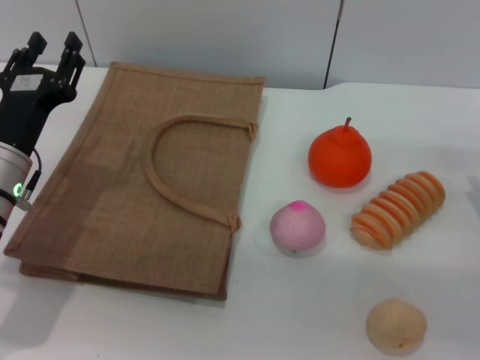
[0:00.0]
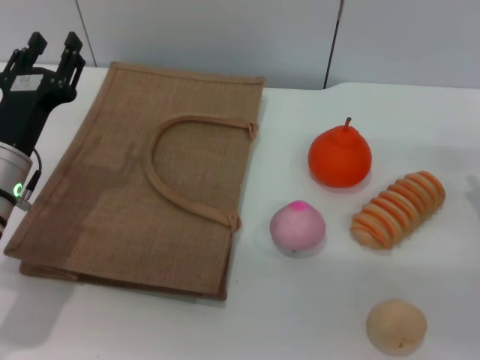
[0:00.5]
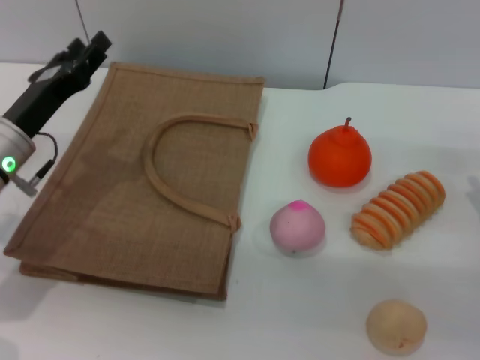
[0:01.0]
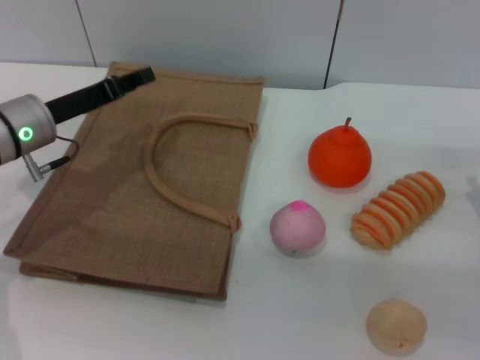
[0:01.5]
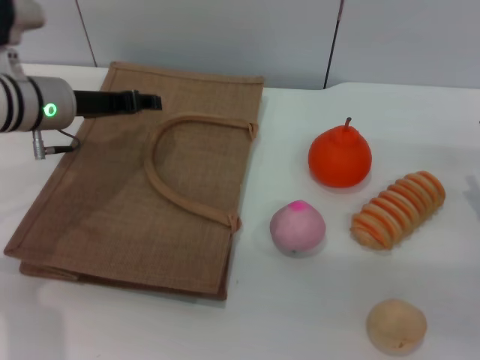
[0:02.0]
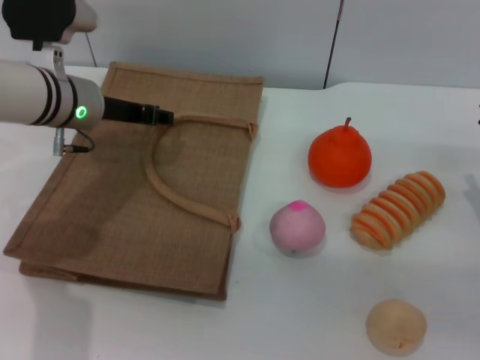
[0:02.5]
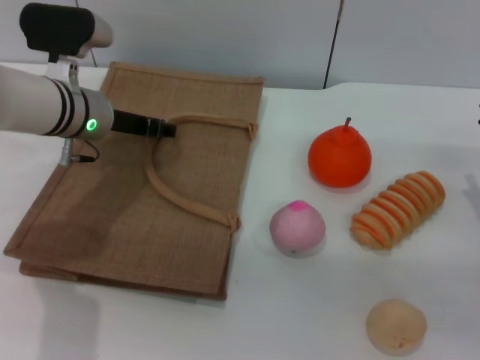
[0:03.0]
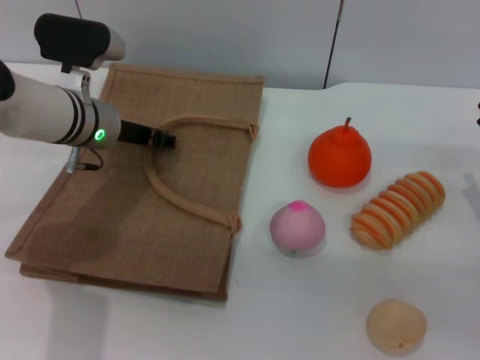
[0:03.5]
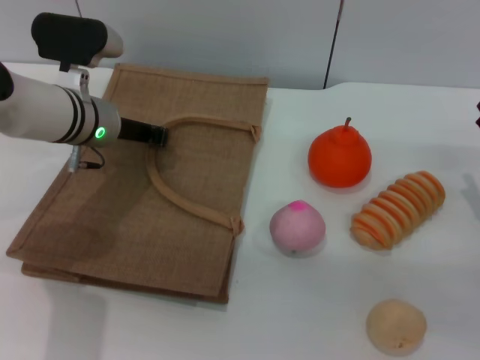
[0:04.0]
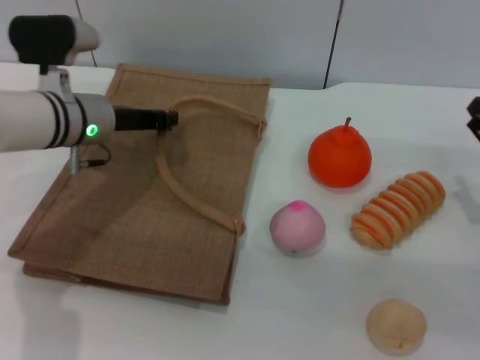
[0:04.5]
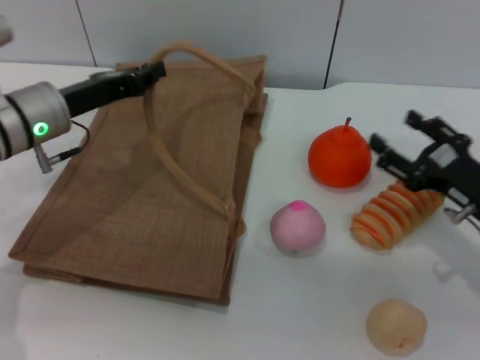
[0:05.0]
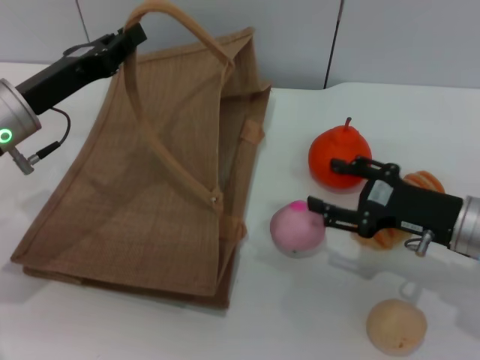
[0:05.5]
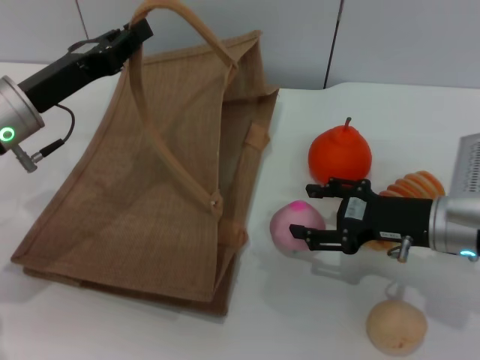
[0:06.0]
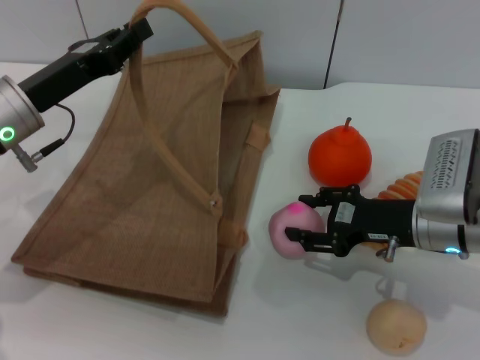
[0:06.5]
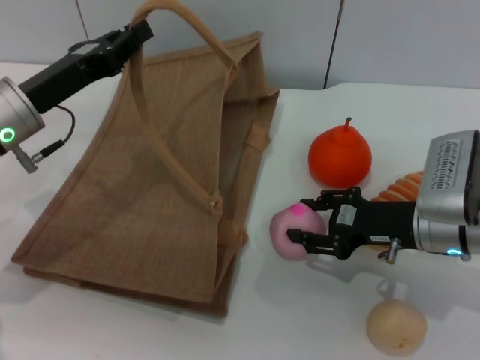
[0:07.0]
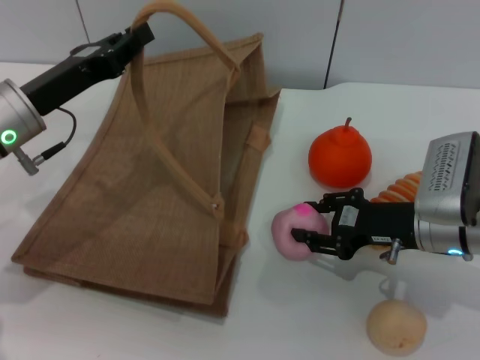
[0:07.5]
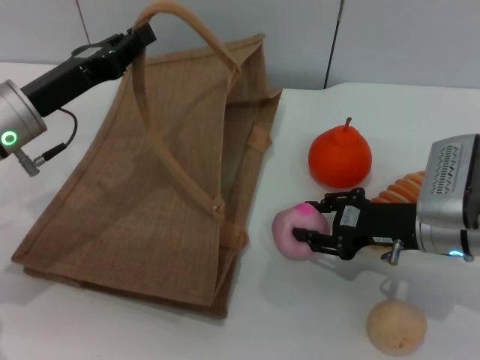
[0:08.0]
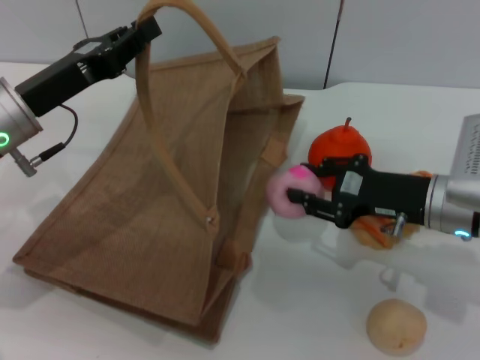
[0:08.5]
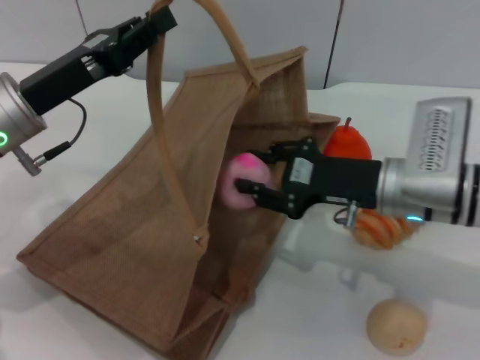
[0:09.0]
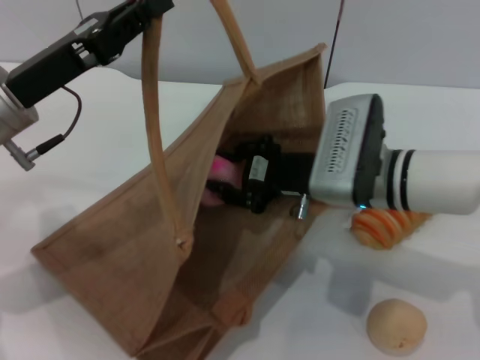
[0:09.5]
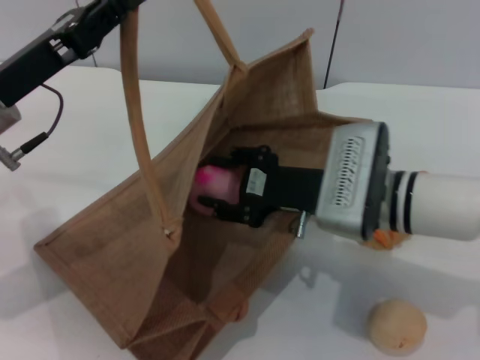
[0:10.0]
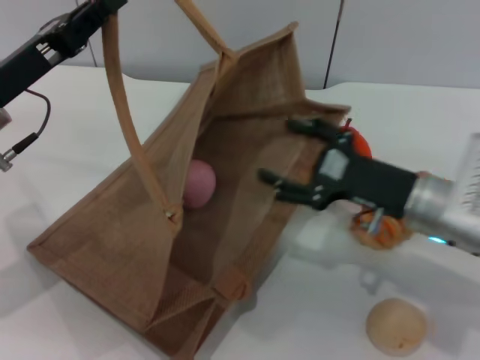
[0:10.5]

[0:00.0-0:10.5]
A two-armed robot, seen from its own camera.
Task of the whole recording: pick up the peach from the table and place it in the brown handbag.
Step, 0:00.0 to 0:04.5: Lift the woven bag with the left gripper to open it.
Step, 0:05.0 to 0:08.5: Pick up the peach with the right gripper.
Step, 0:09.0 to 0:10.5: Place the peach into the woven bag with the right gripper.
0:00.0 to 0:02.0: The left gripper travels forward and upward by roughly 10 cm.
0:02.0 to 0:04.0: The left gripper changes place by roughly 5 cm, and closes up.
0:04.0 to 0:06.5: The left gripper is displaced backward and to the left by approximately 10 cm. Meanwhile the right gripper is displaced to the left by approximately 10 cm.
0:06.5 to 0:08.5: The right gripper closes up.
0:08.5 to 0:10.5: The right gripper moves about 10 cm to the left and comes back, and opens its fingers.

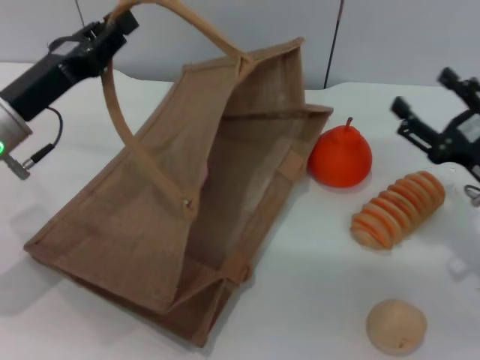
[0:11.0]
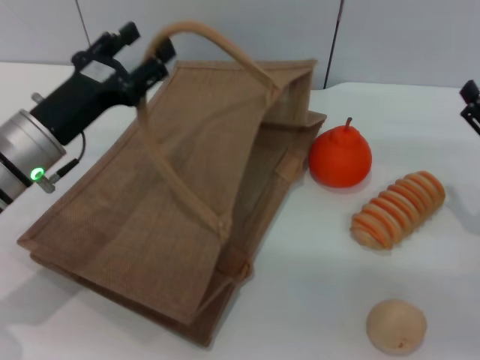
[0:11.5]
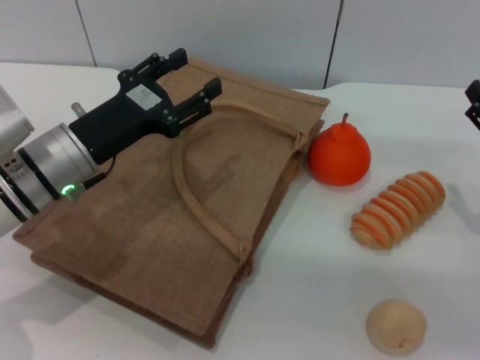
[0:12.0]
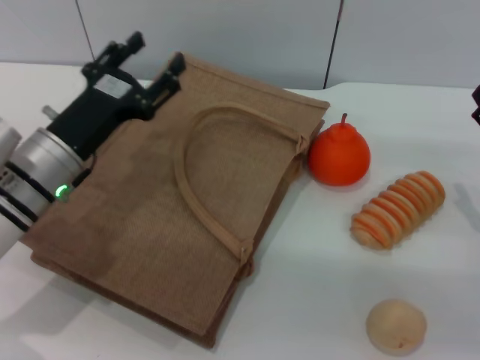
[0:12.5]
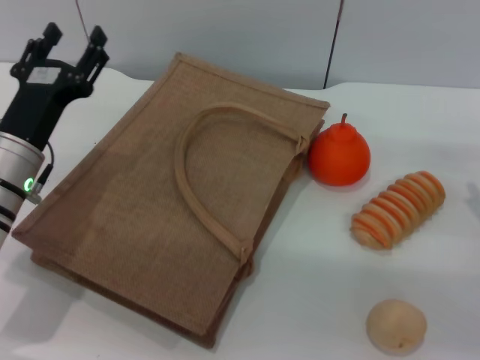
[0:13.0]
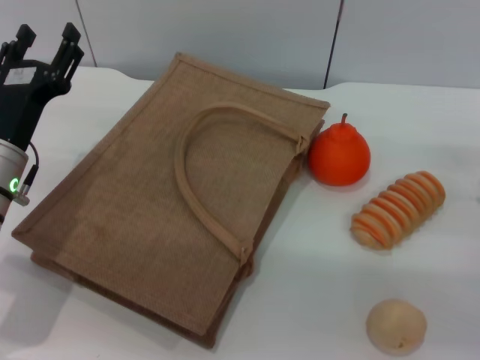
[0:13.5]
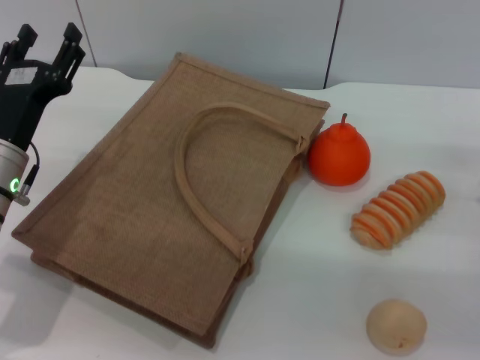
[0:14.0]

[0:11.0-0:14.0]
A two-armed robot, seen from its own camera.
Task of the whole recording: pick up the peach from the table and place it in the brown handbag.
Step, 0:11.0 to 0:12.0: Lower the woven bag with the left gripper to close it.
0:11.0 to 0:12.5: The left gripper shifts by about 5 cm, and opens its fingers.
